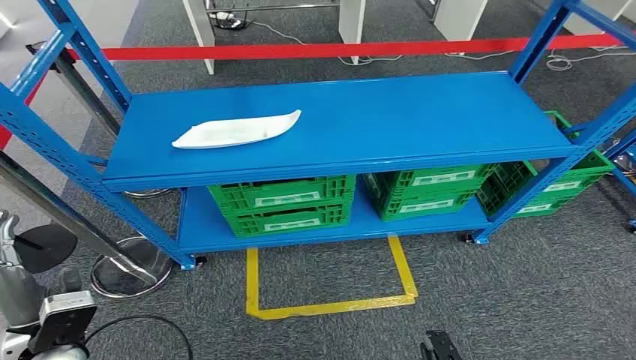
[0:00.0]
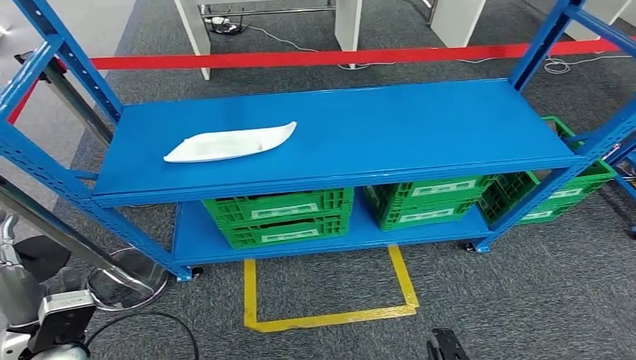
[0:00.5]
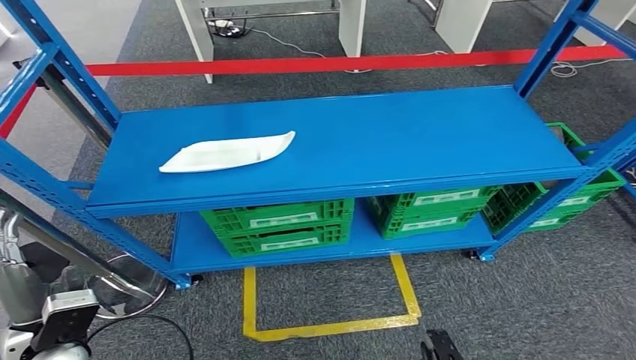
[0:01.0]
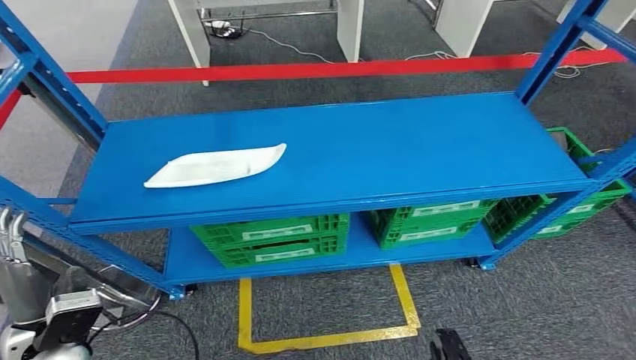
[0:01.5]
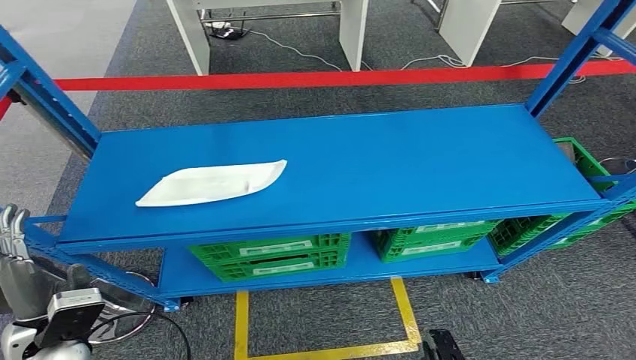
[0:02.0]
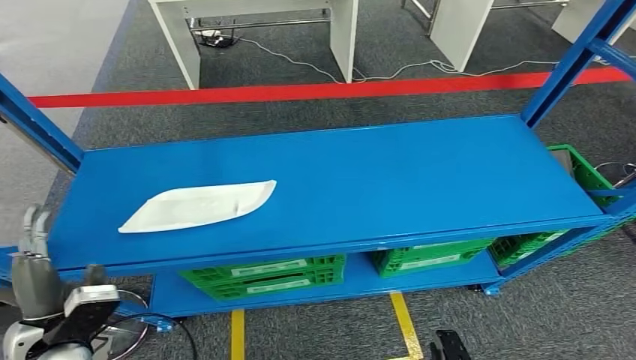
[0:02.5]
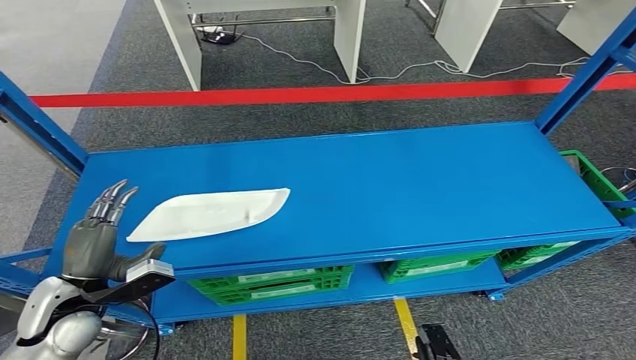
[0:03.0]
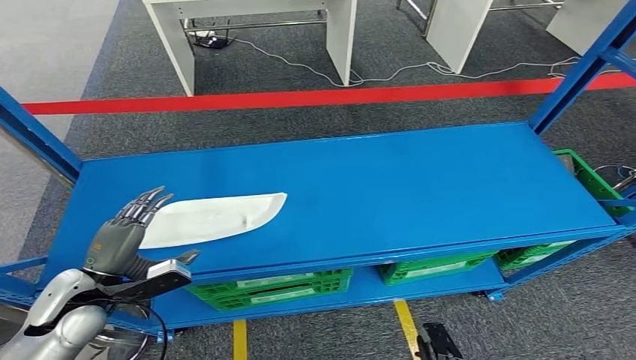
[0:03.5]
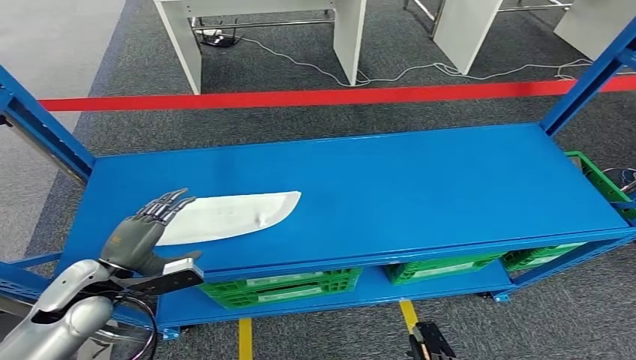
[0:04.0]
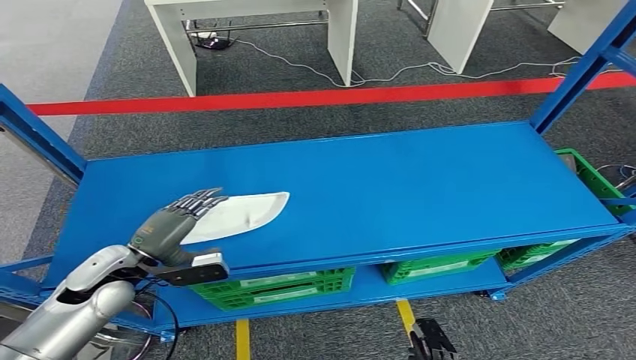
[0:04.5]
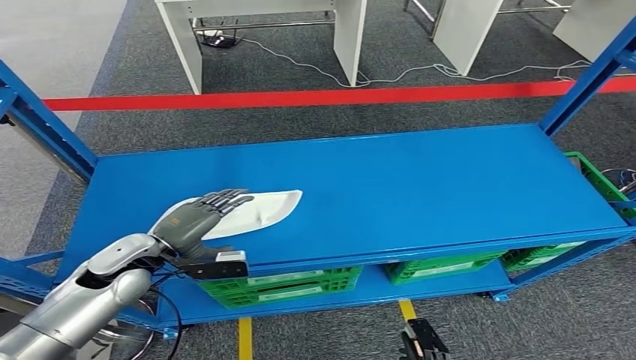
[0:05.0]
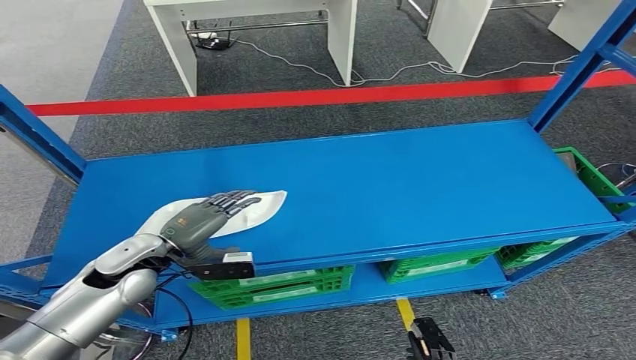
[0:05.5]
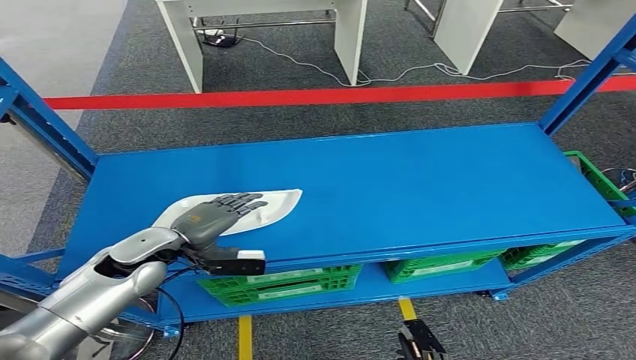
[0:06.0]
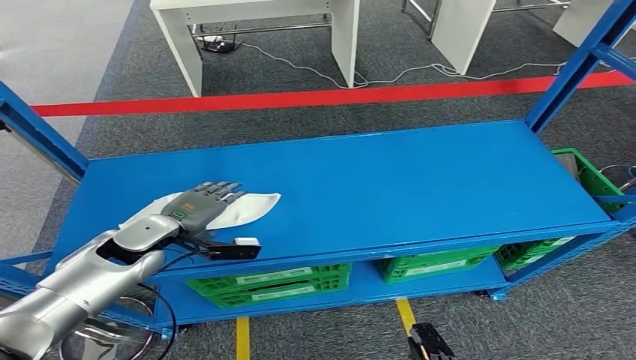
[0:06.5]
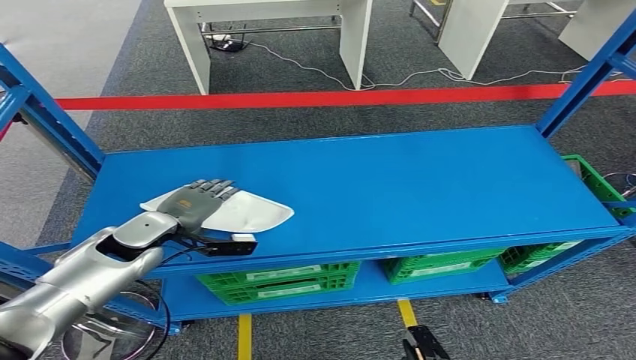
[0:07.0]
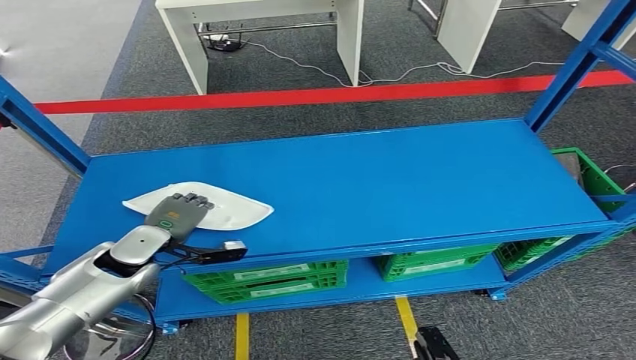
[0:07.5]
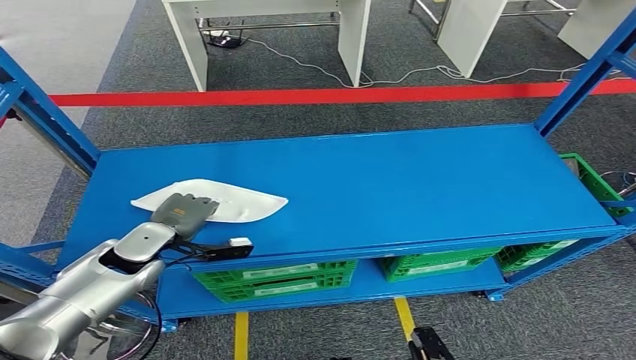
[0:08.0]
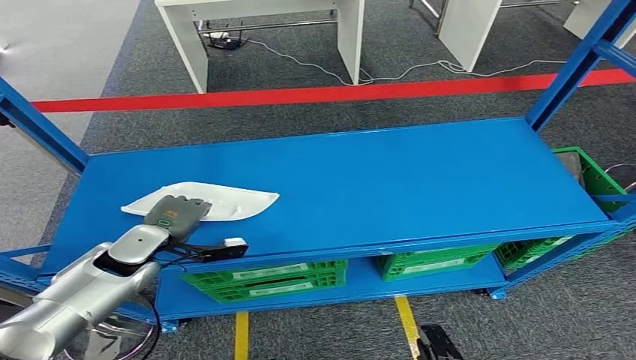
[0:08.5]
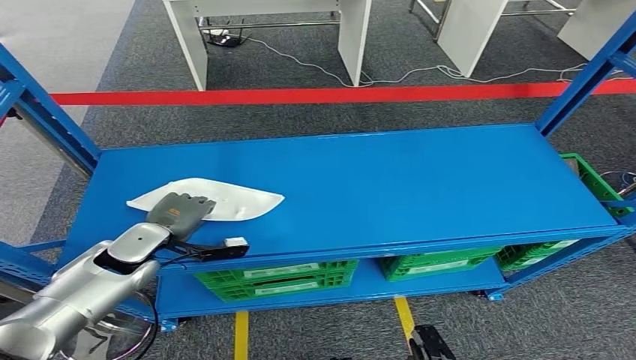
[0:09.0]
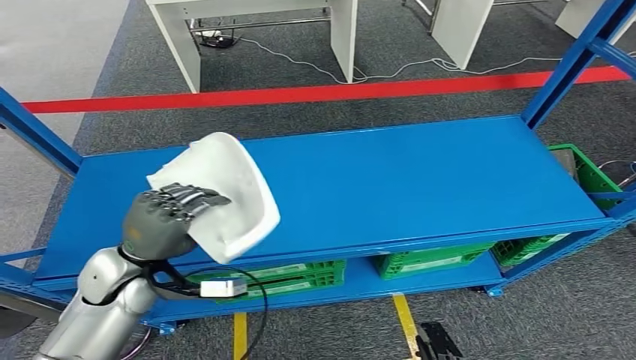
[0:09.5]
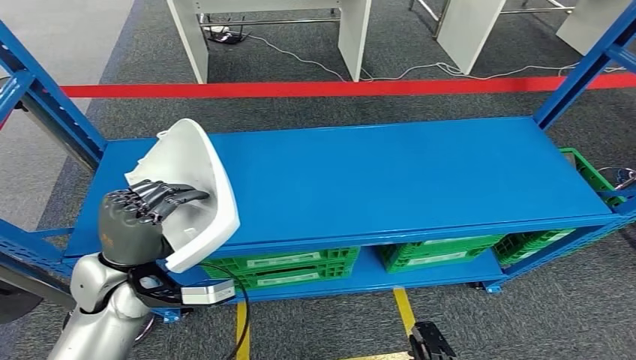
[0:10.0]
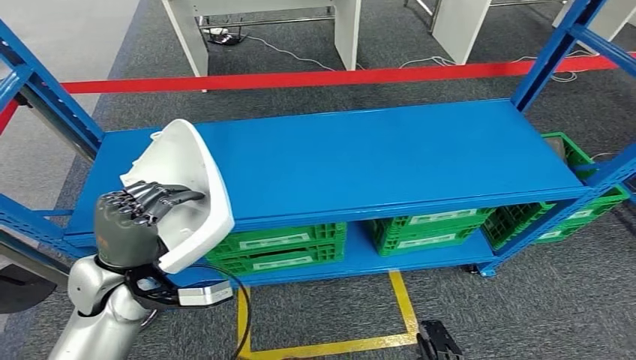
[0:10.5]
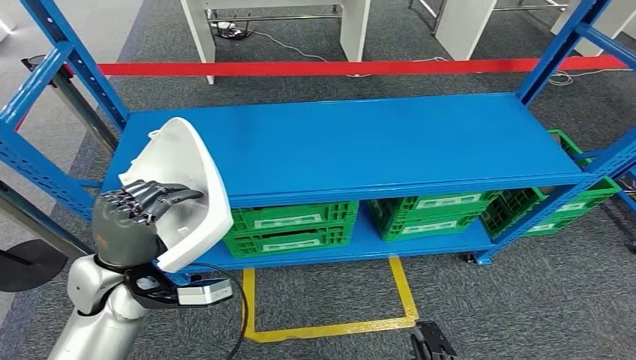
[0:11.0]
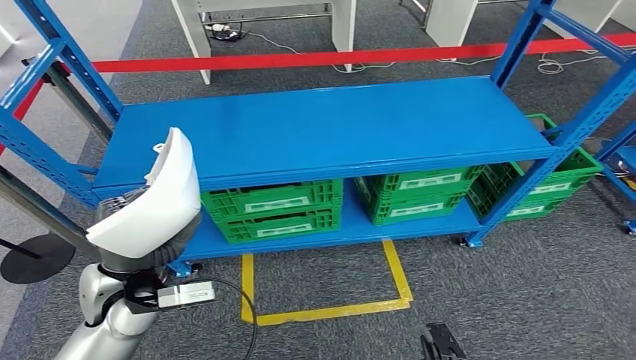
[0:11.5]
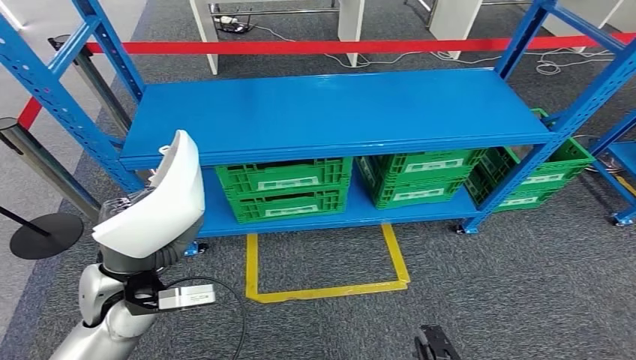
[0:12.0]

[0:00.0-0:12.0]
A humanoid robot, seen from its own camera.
Step, 0:00.0 to 0:09.5: Pick up the small component from the shelf.
0:04.0 to 0:06.0: The left hand shifts some 10 cm to the right and forward.

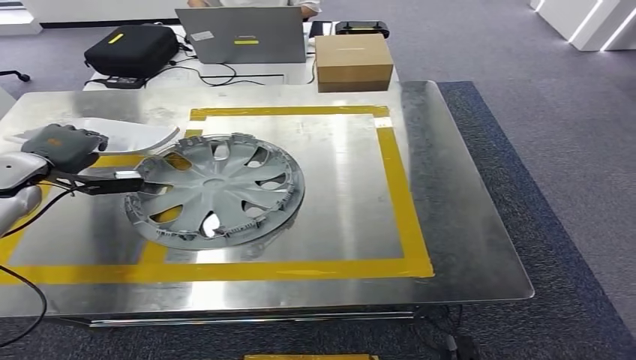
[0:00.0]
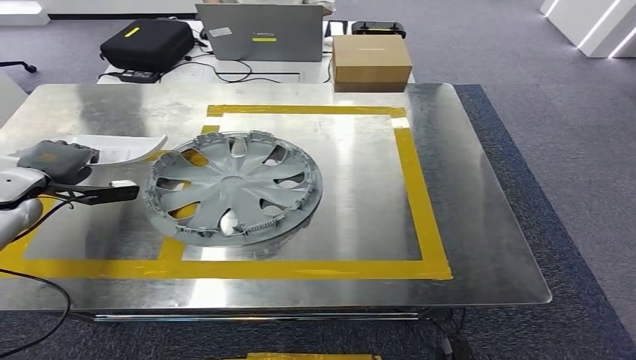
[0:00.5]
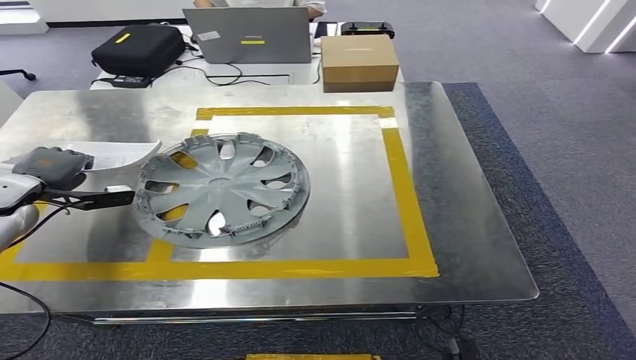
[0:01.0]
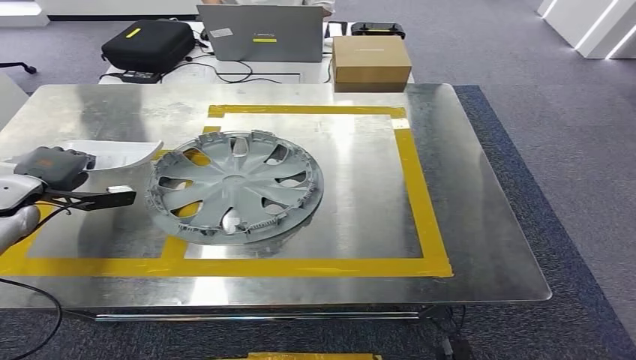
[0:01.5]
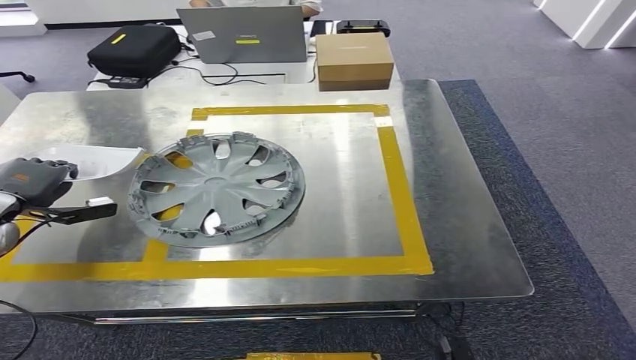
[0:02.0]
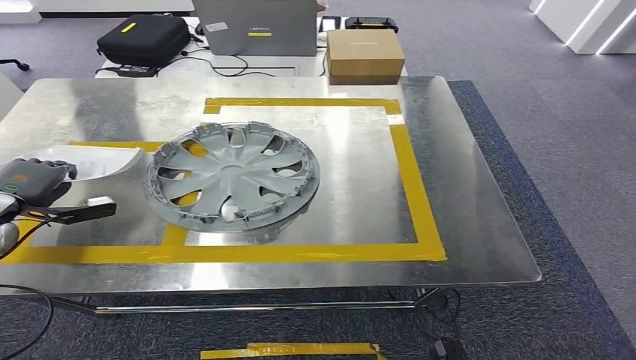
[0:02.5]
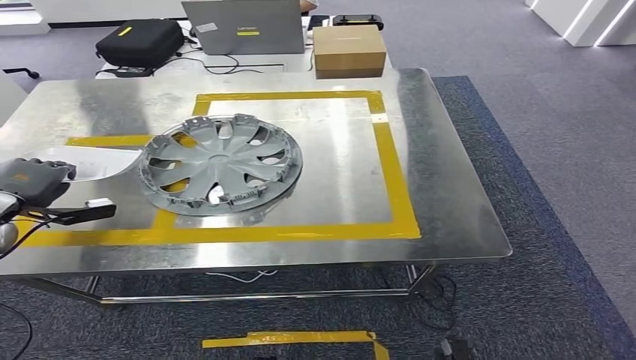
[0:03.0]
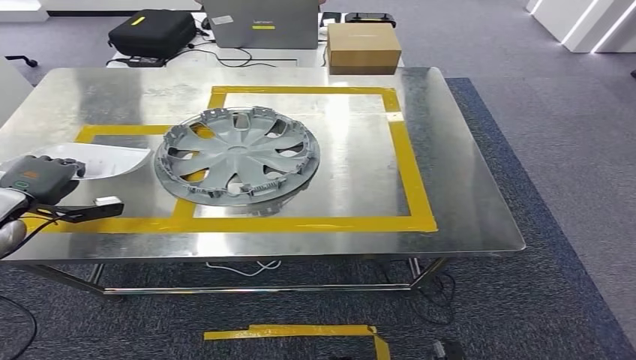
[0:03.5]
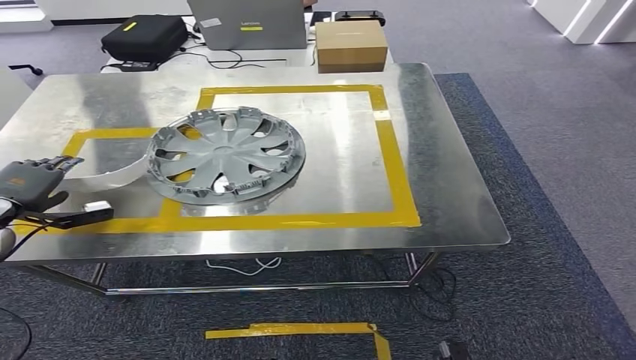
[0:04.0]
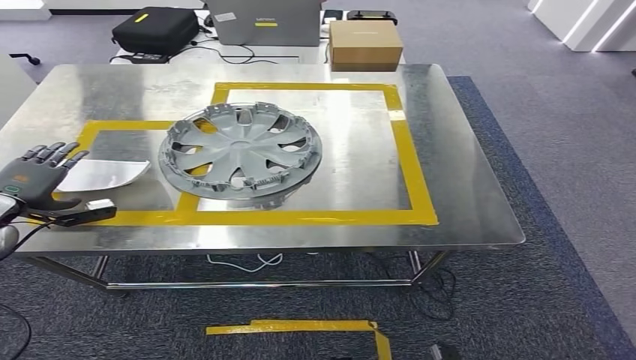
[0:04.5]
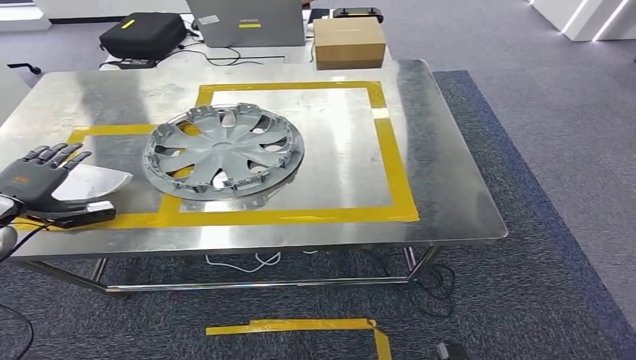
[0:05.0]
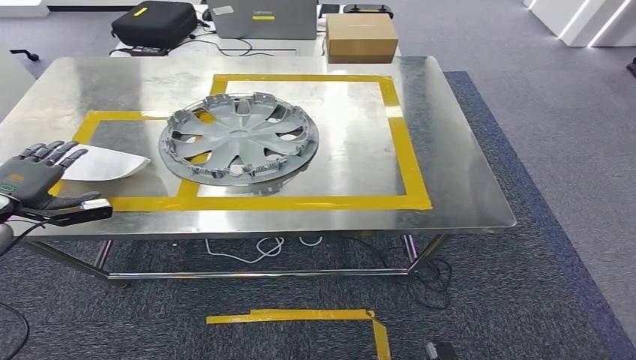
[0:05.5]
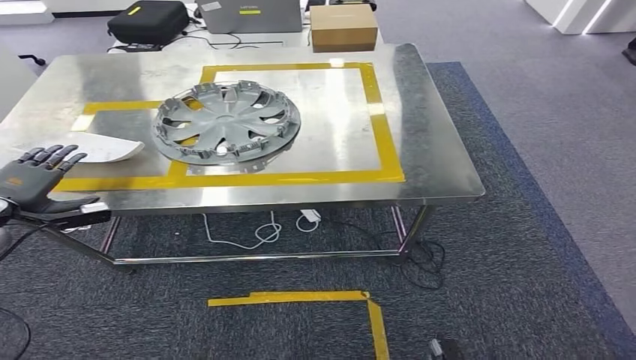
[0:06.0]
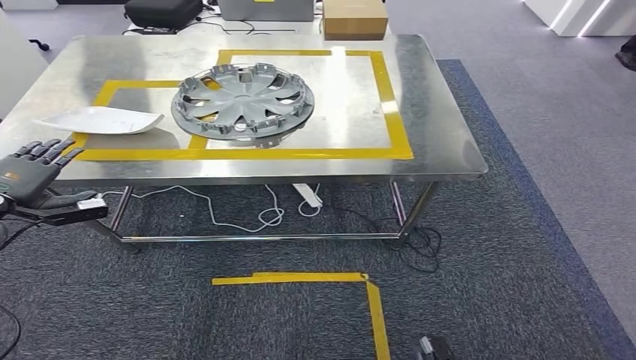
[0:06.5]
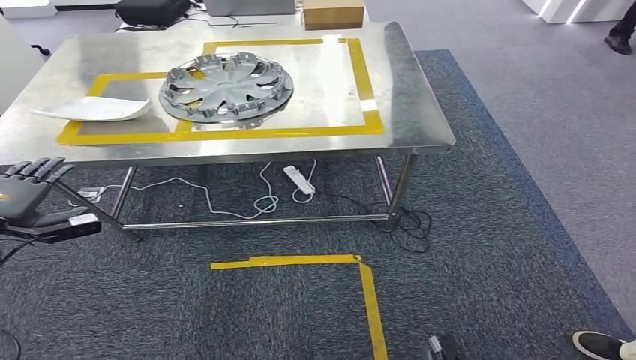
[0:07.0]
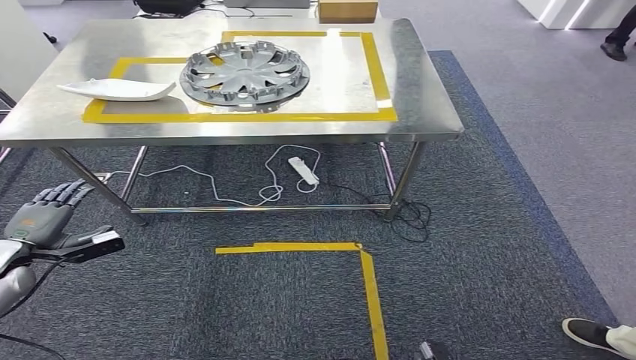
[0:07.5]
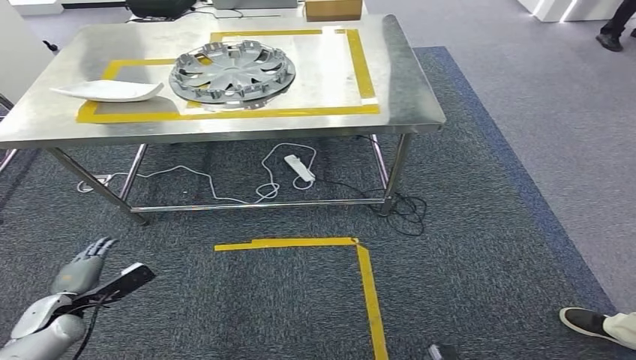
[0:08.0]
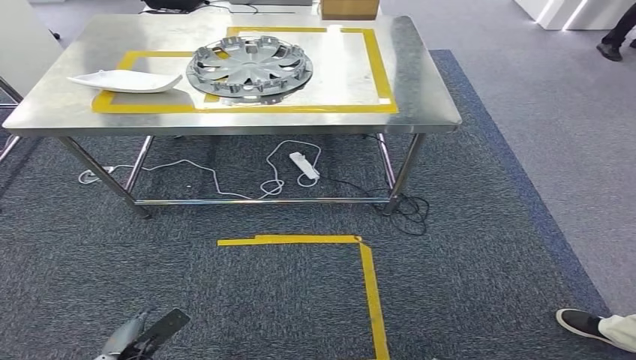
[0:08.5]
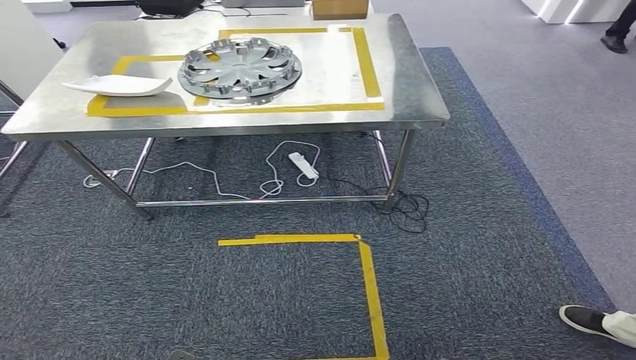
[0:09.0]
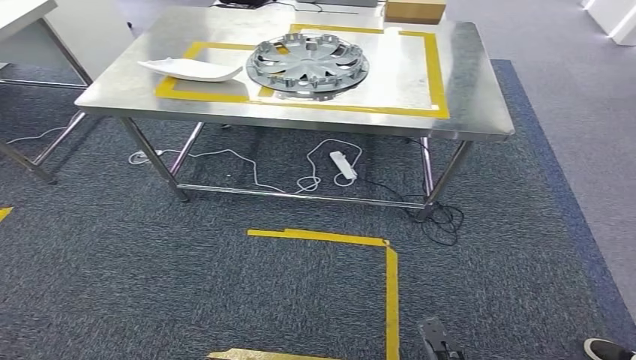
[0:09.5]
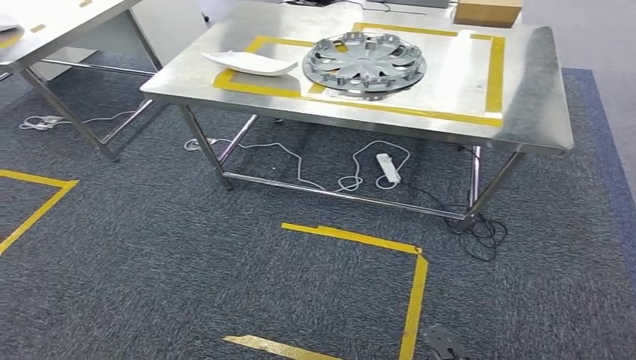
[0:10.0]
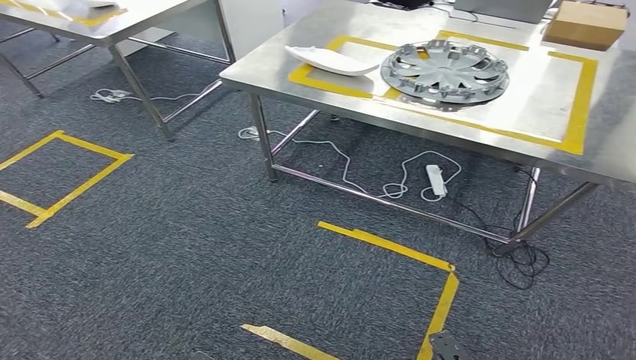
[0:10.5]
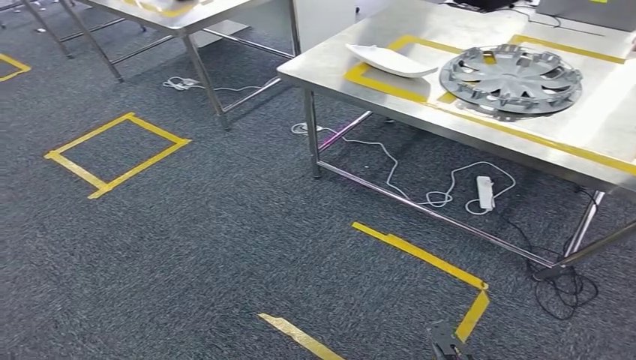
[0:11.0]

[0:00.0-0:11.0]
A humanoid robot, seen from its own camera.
Step, 0:00.0 to 0:06.0: Insert the small component into the corresponding slot on the workbench.
0:00.0 to 0:02.0: The left hand is displaced downward and to the left by some 10 cm.
